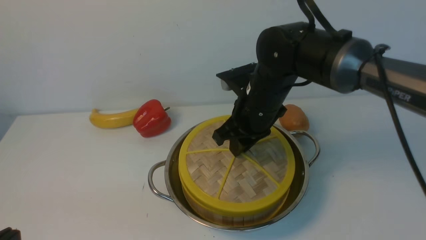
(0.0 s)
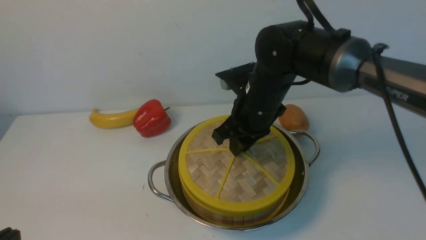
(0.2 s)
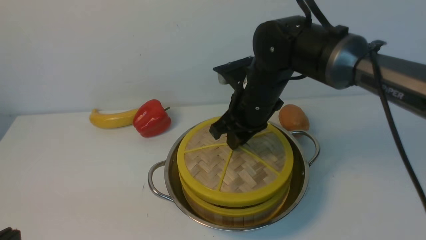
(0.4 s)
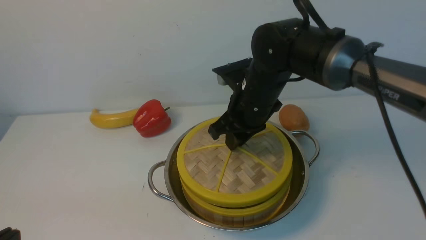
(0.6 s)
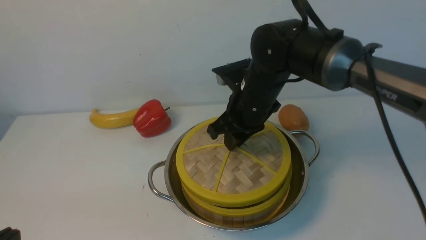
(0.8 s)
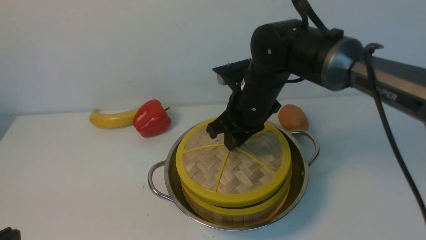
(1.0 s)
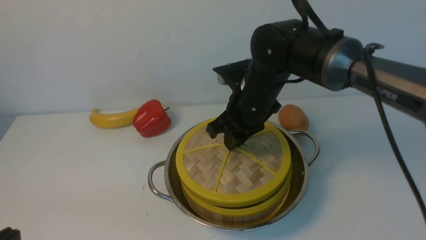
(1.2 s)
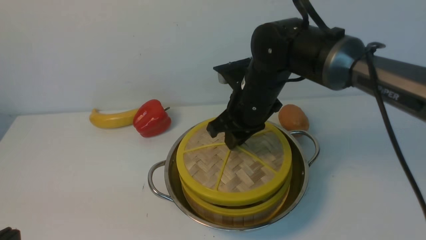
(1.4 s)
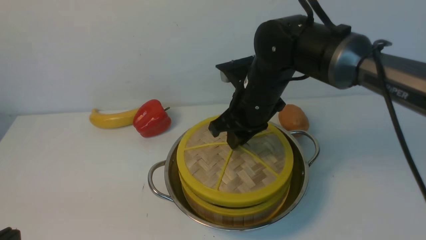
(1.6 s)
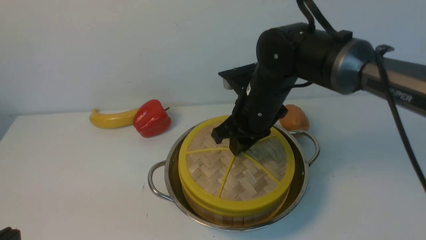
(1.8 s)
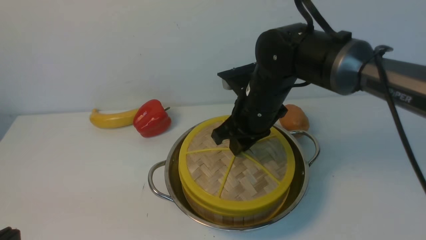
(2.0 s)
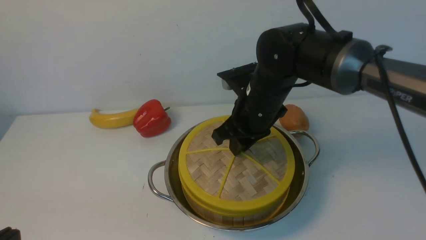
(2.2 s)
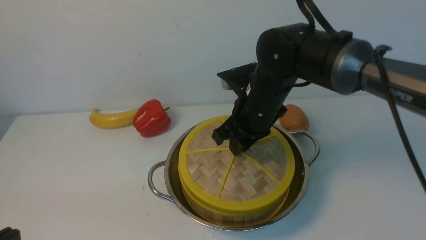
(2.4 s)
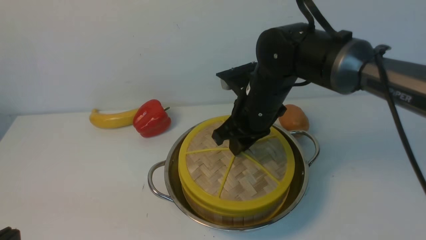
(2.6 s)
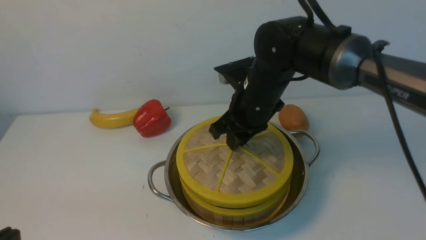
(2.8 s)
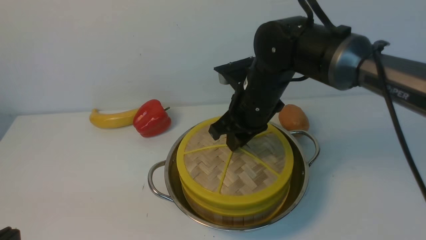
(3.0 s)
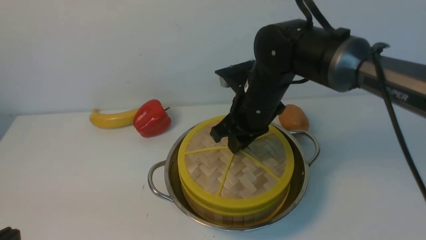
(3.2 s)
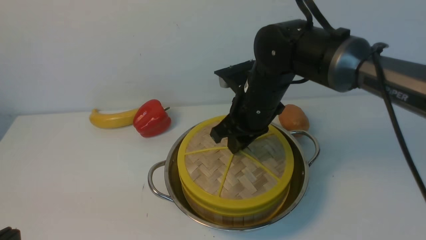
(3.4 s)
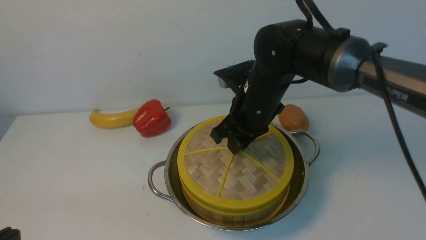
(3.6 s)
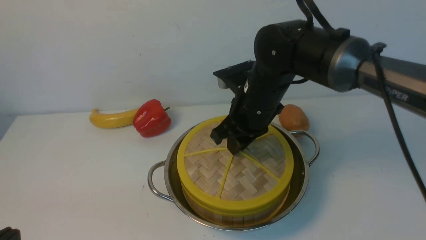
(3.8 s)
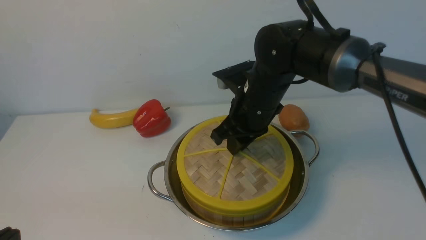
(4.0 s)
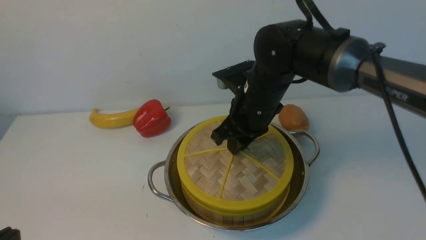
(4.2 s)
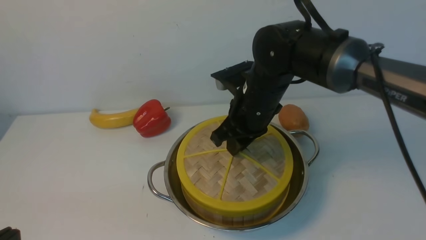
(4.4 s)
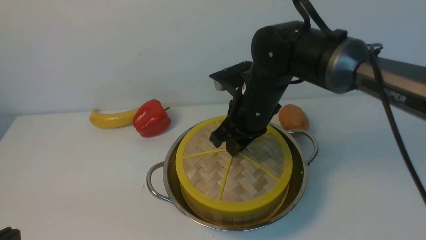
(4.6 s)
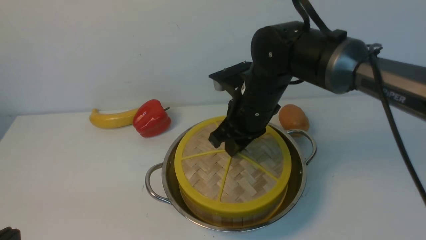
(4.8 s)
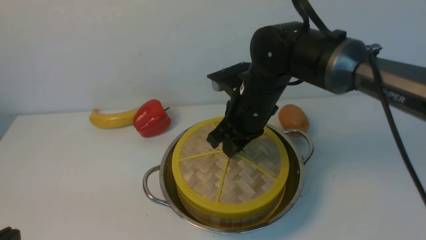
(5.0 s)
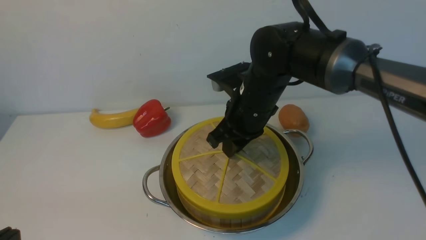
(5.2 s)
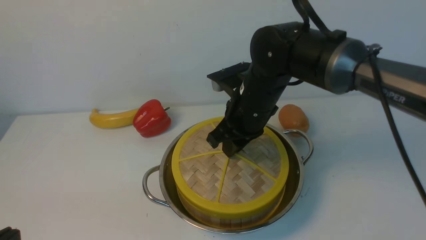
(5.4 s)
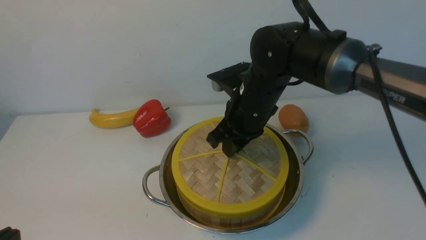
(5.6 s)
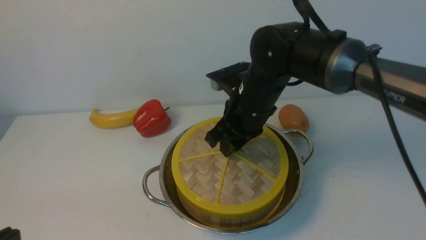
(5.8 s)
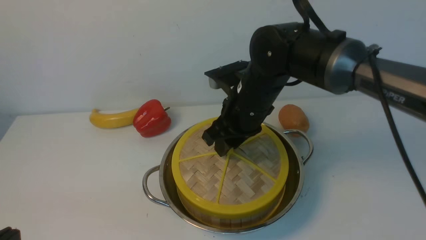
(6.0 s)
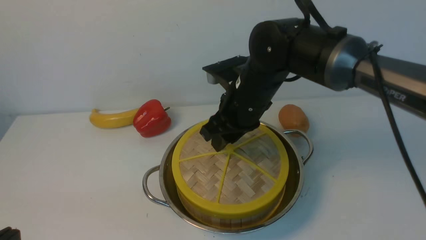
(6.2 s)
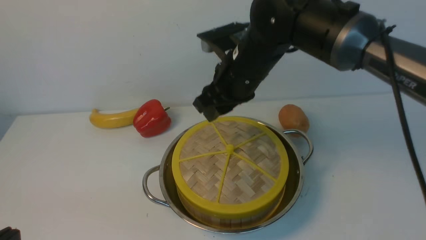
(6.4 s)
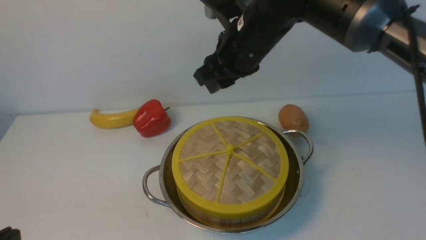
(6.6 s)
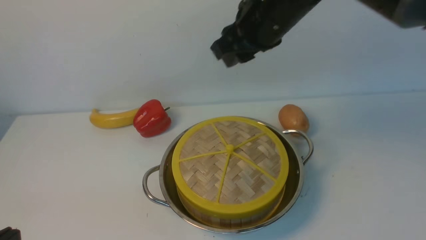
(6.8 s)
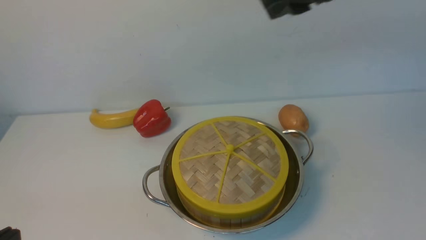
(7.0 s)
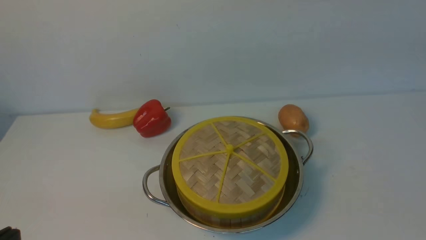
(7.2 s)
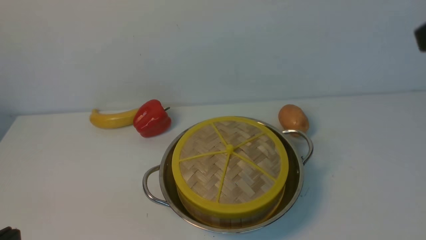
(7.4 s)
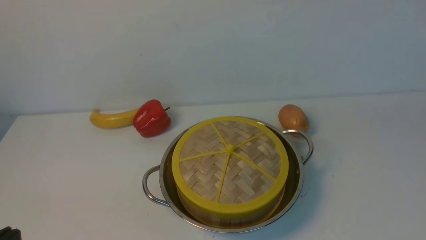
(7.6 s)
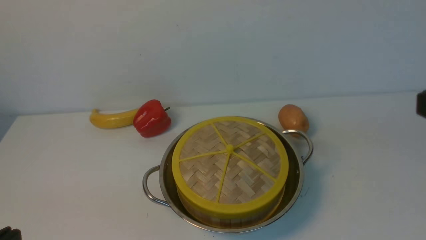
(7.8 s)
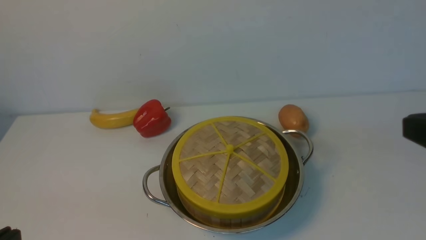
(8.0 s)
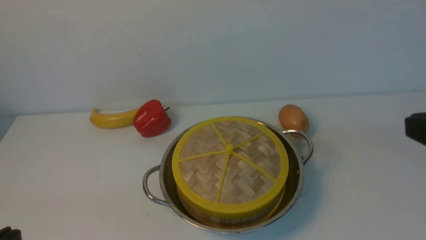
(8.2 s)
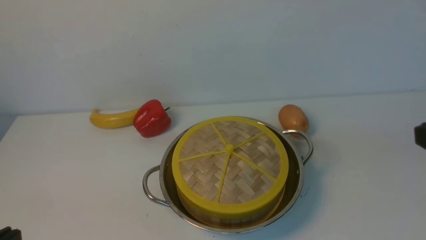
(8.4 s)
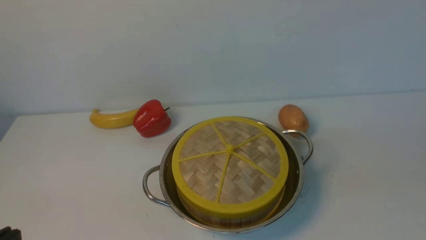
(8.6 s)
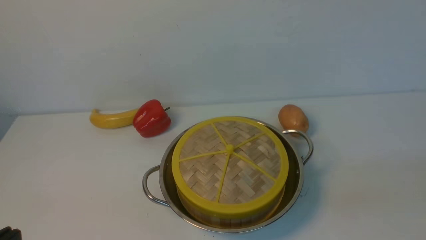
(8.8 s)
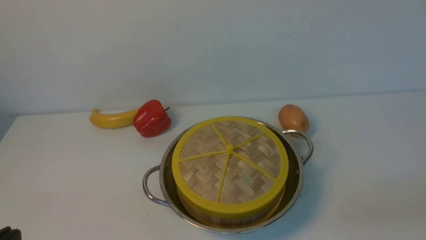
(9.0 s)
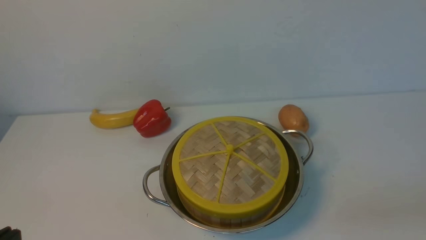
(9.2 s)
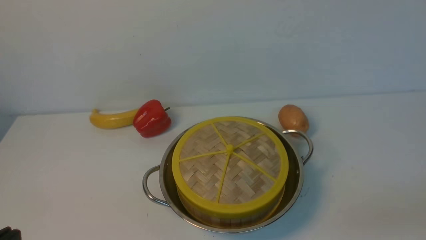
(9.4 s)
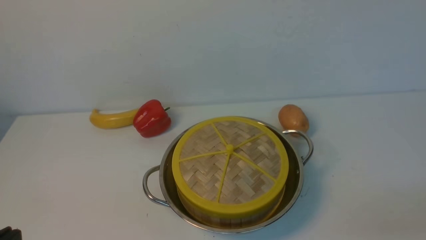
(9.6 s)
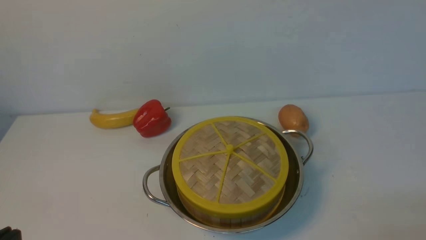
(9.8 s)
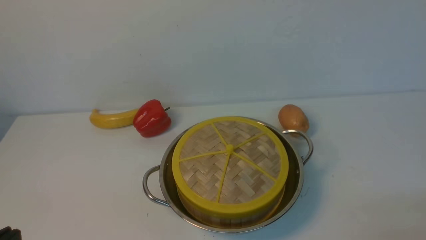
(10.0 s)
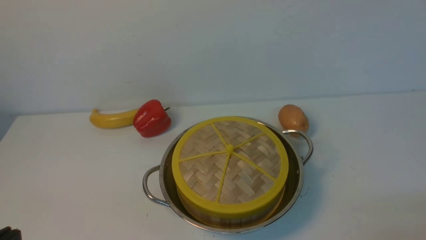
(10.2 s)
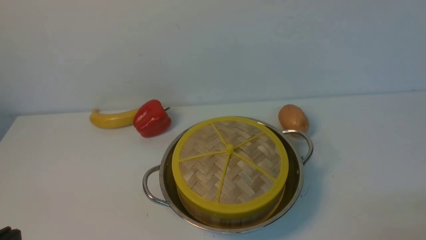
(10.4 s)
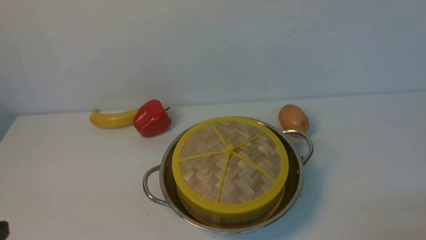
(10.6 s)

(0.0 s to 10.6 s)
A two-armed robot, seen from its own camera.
Task of the whole recording: place the steamer in the pot on the white table, and put the lid on the steamer.
Step, 0.0 s - 6.6 s: use the right arm to place the steamer lid on the steamer.
0.0 s - 3.0 s: Neither gripper changes place.
3.0 s - 4.6 s: There are only small adjustments of the grippers.
4.6 s - 6.0 s: The right gripper opens.
6.0 s - 7.6 s: The right gripper heads backward, to the right and upward, covering approximately 35 cm, and closes its fingers.

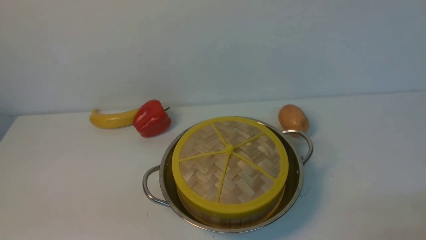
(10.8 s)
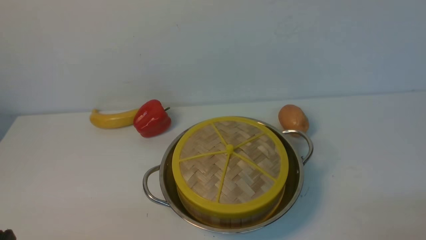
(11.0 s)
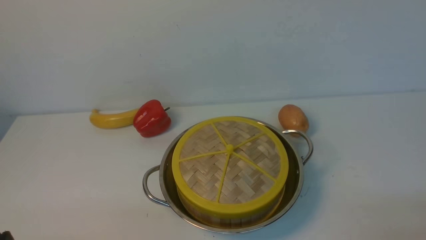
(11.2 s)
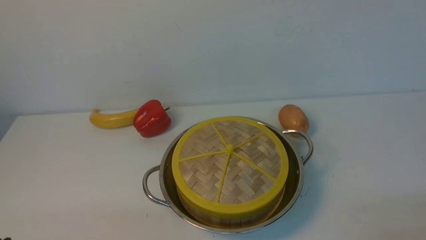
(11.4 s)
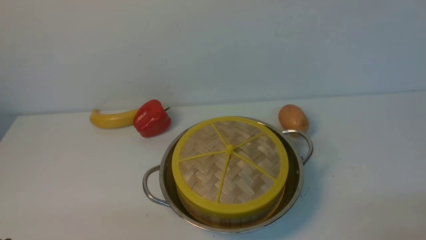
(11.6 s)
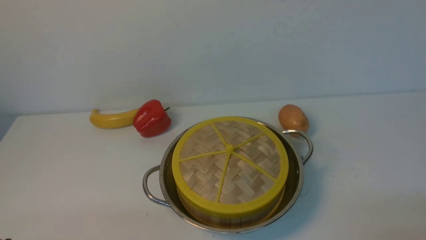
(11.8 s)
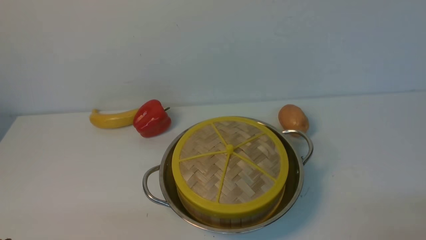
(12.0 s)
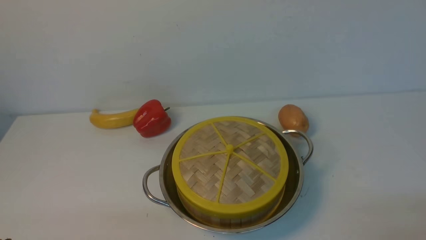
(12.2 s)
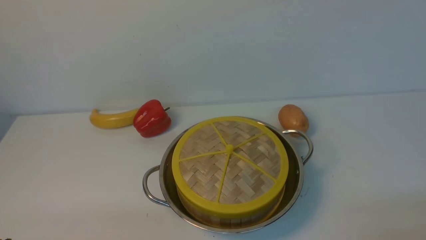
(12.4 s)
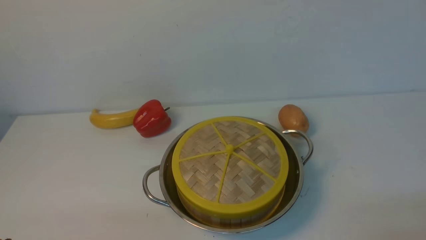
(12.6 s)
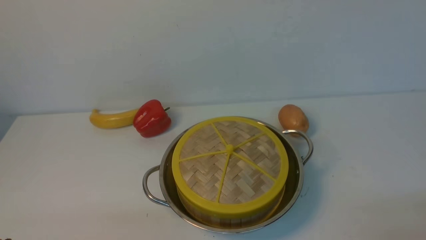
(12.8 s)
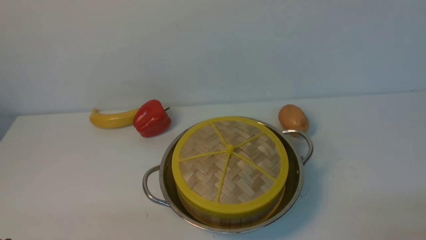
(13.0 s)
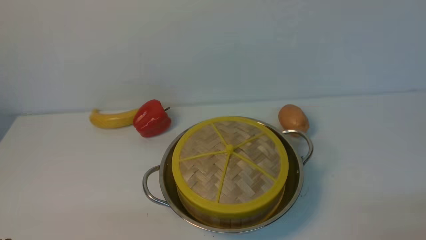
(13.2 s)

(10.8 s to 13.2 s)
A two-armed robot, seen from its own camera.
Task of the whole recording: place the steamer in the pot on the white table, and put the lid on the steamer.
12.0 s - 13.2 s: Neither gripper changes place.
